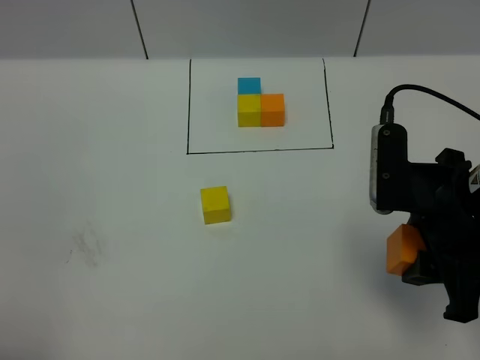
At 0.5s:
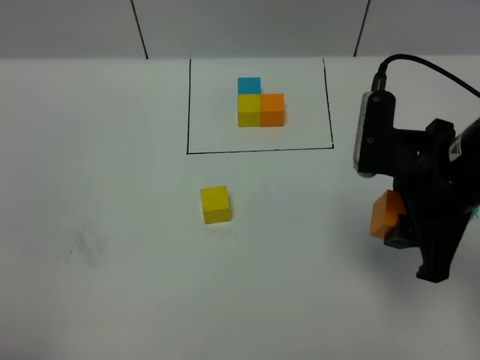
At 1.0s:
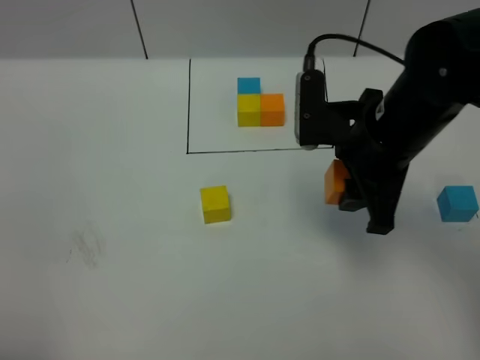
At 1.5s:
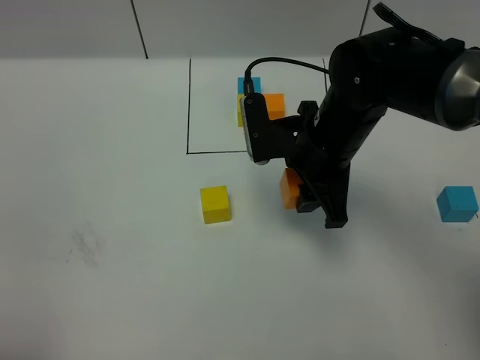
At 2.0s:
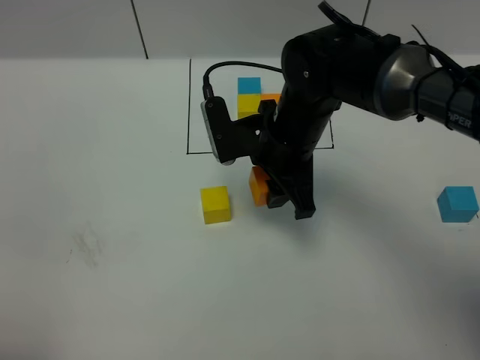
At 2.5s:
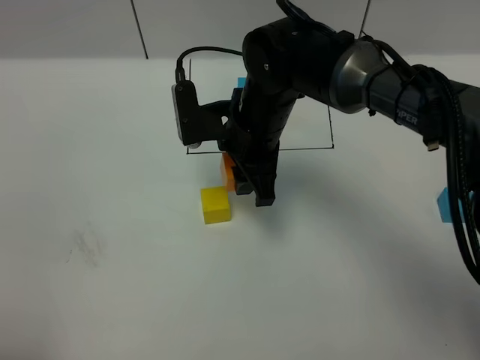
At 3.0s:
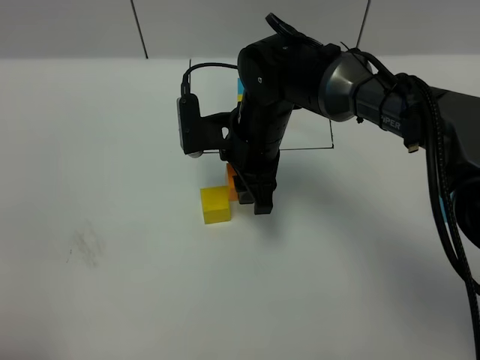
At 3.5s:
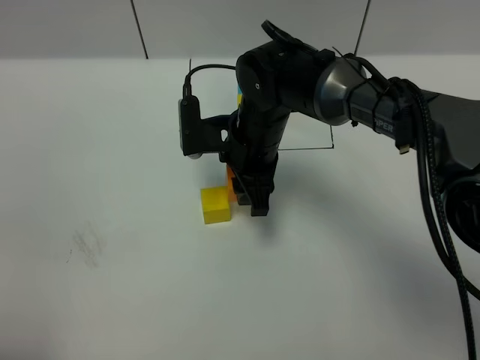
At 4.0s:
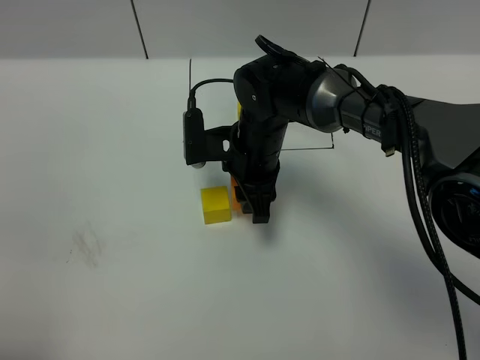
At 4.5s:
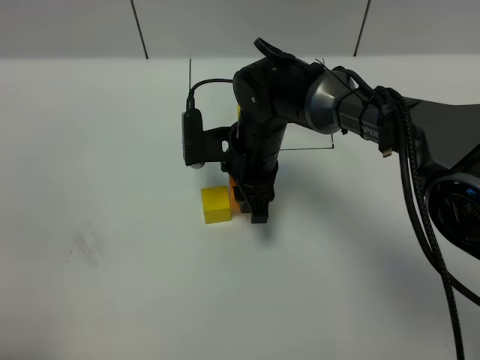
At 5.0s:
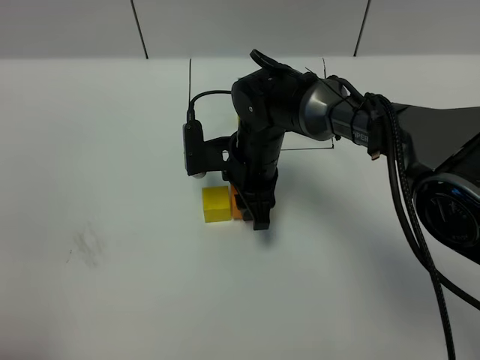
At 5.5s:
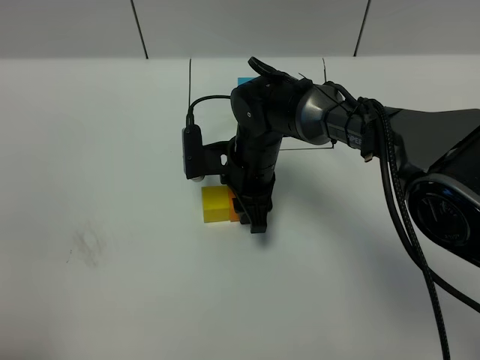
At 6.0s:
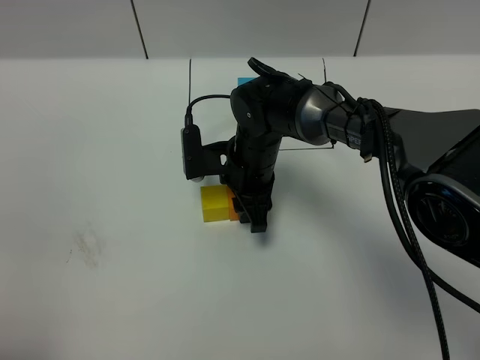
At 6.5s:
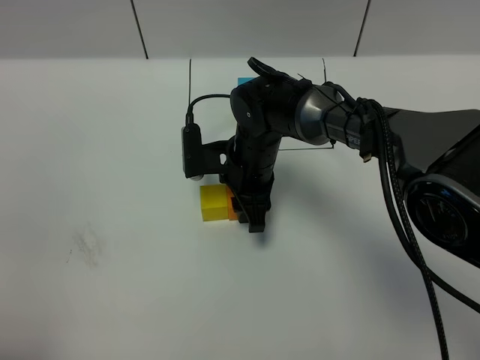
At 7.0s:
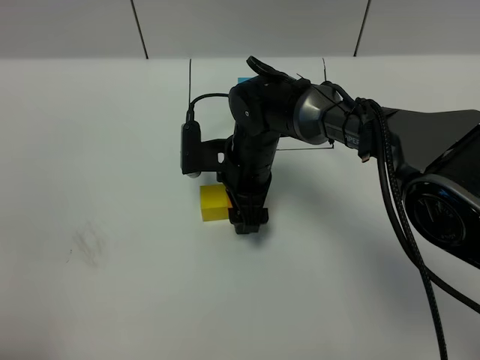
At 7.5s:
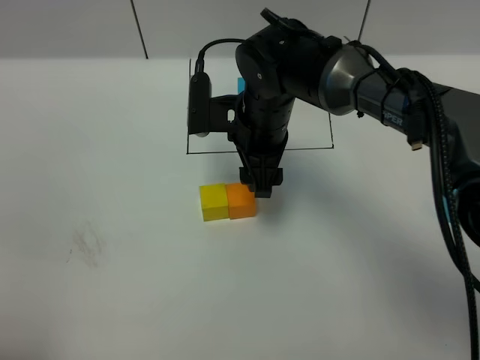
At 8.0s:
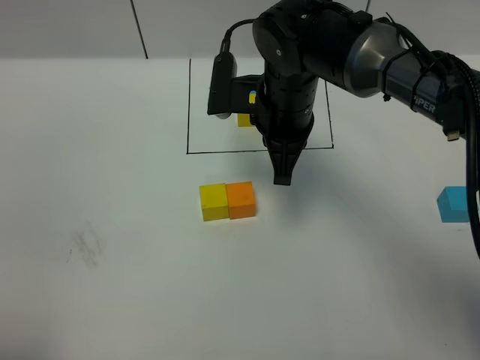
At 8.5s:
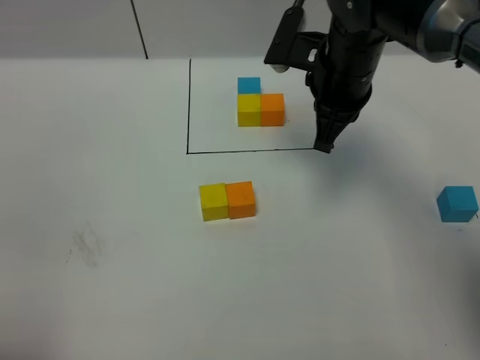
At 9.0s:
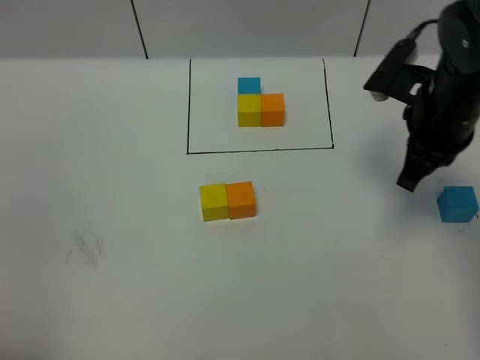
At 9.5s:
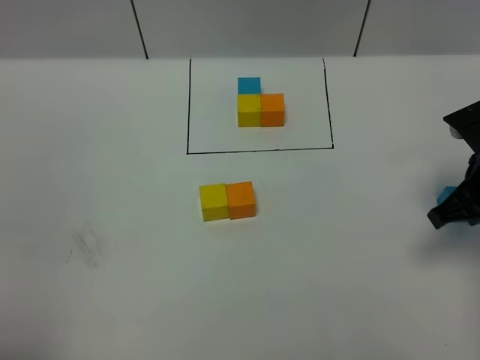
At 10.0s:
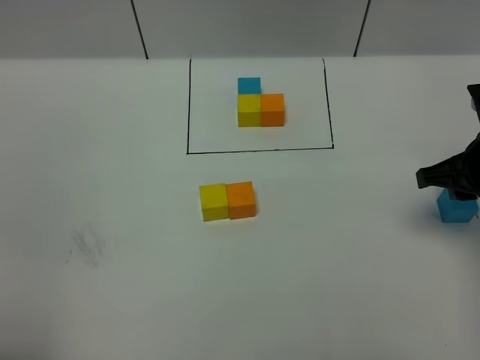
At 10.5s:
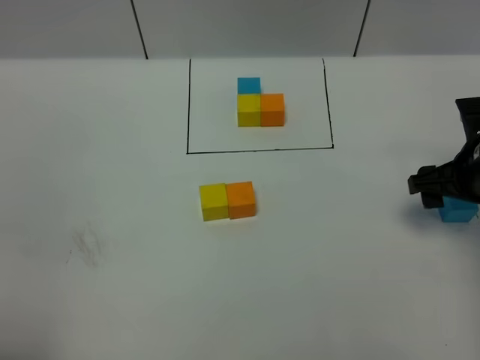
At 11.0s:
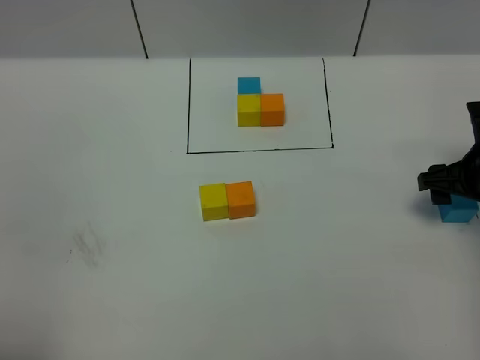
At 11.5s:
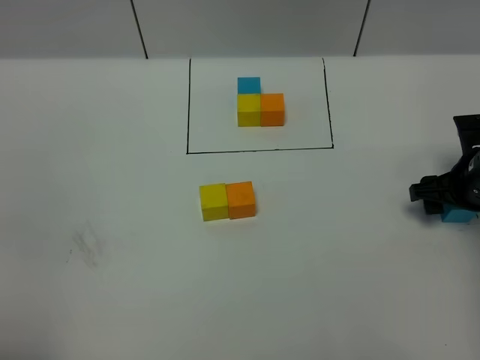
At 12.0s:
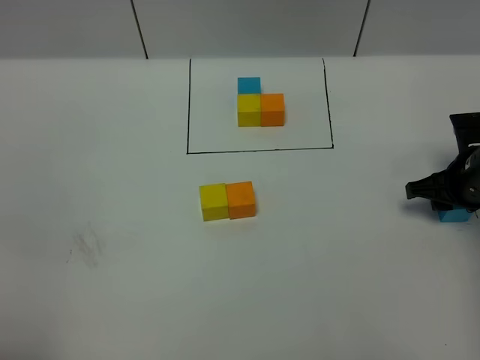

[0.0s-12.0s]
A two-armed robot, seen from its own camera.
Task of the whole recording: According to the building block template in front, assemble the scattered blocks together.
Step, 0.0s to 7.0s: Put the orange cube on the right of the yellow cube.
0.0s to 2.0s: The right gripper is displaced forward, to the left and downward by approximately 20 cm.
2.0s to 4.0s: The right gripper shifts approximately 5 cm downward.
4.0s to 6.0s: The grippers make only small movements.
6.0s to 8.0s: The right gripper travels upward by approximately 10 cm, and closes.
8.0s to 10.0s: The right gripper travels to the right by roughly 20 cm, and opens up.
10.0s to 12.0s: The right gripper goes approximately 10 cm downward, and opens, then closes once more.

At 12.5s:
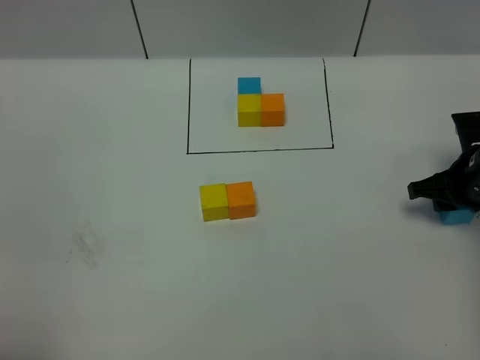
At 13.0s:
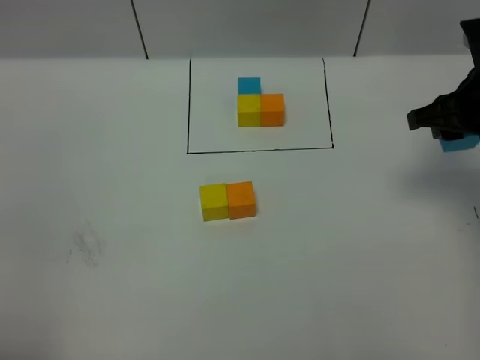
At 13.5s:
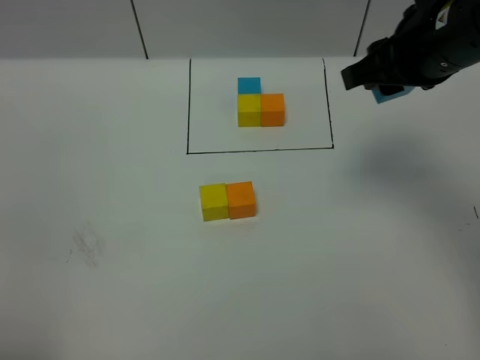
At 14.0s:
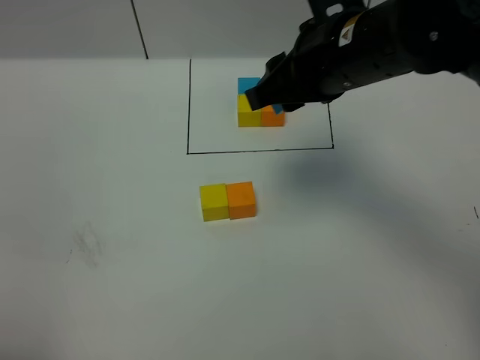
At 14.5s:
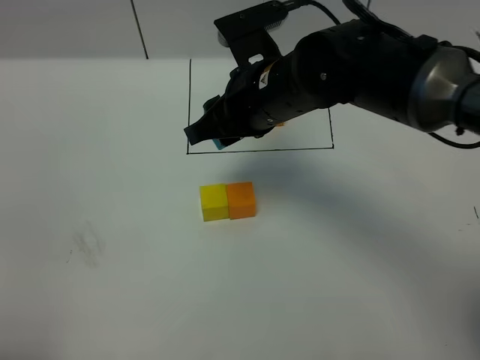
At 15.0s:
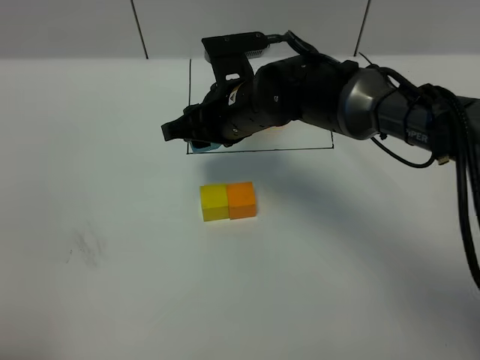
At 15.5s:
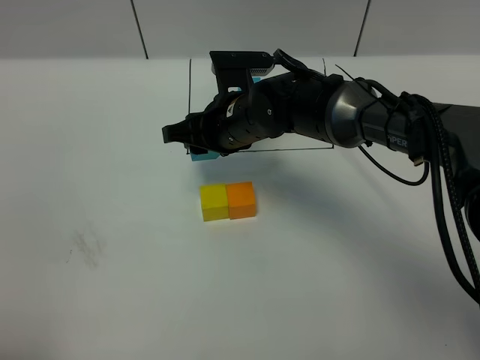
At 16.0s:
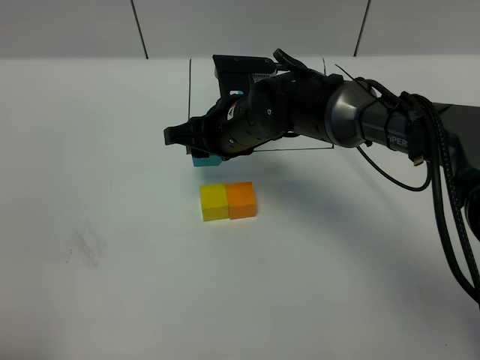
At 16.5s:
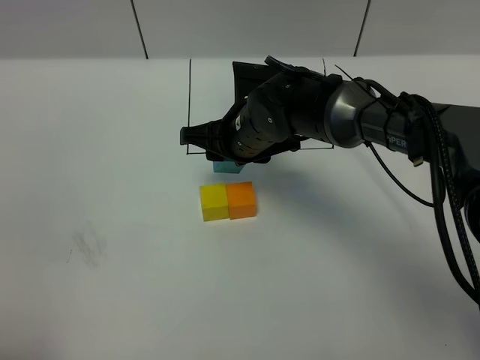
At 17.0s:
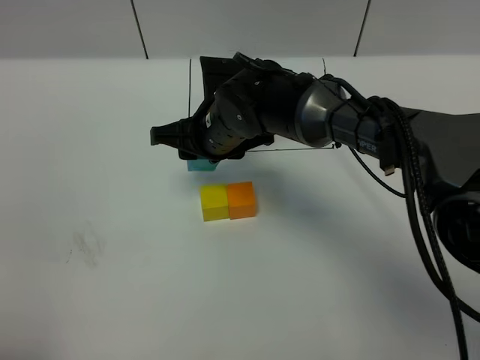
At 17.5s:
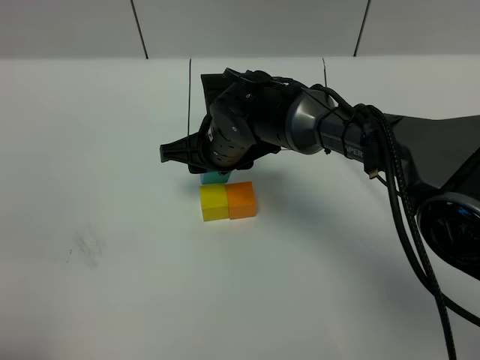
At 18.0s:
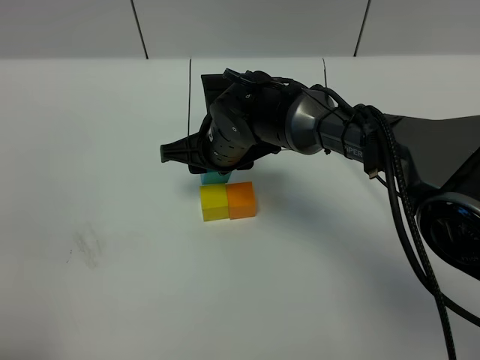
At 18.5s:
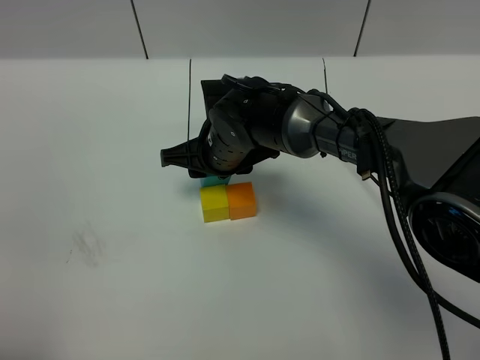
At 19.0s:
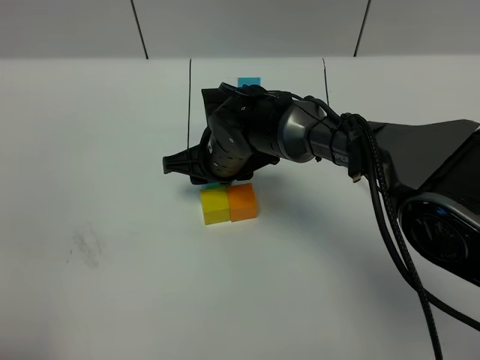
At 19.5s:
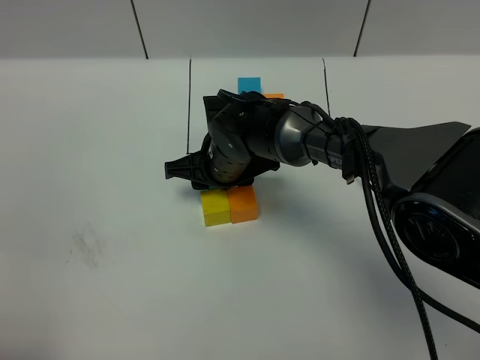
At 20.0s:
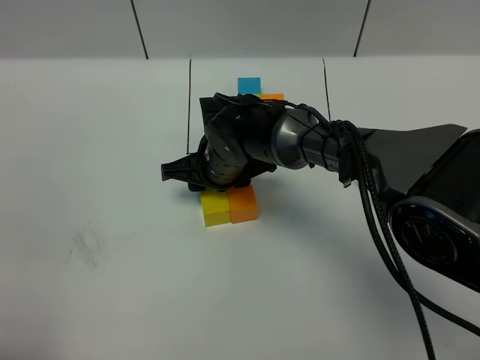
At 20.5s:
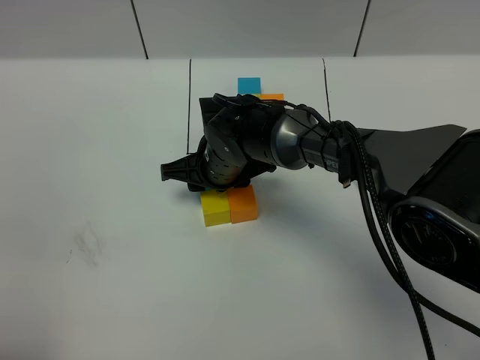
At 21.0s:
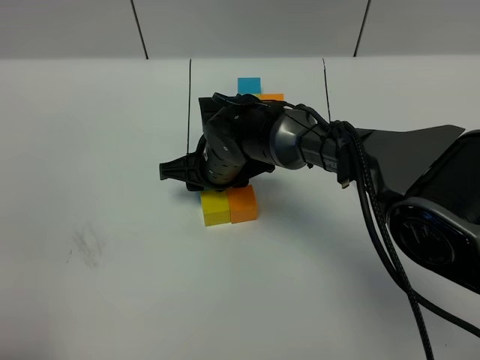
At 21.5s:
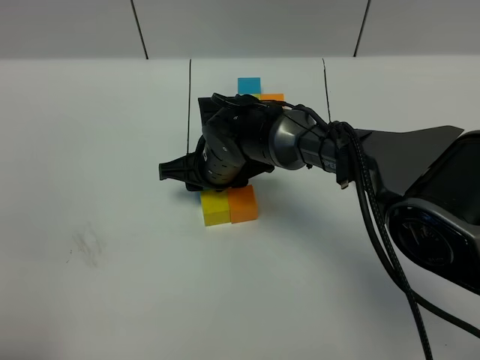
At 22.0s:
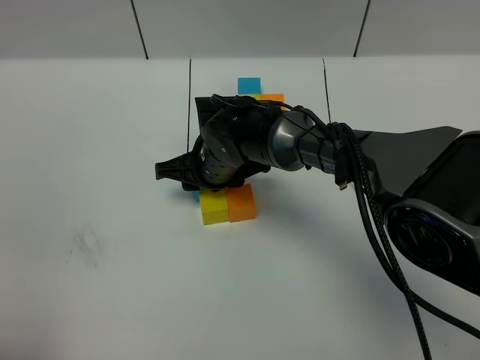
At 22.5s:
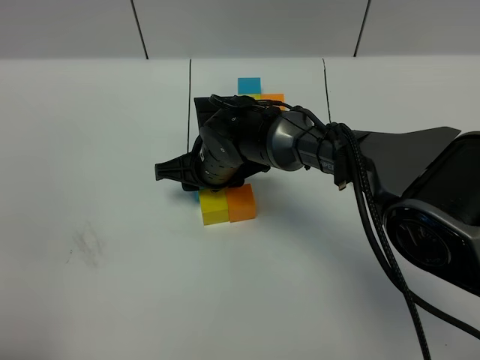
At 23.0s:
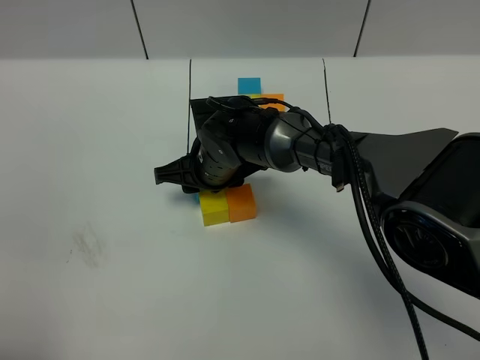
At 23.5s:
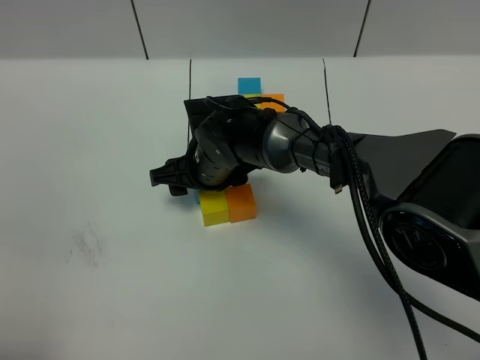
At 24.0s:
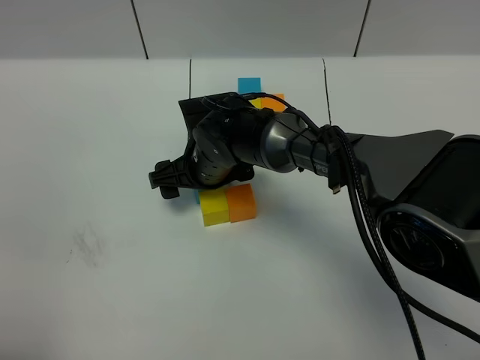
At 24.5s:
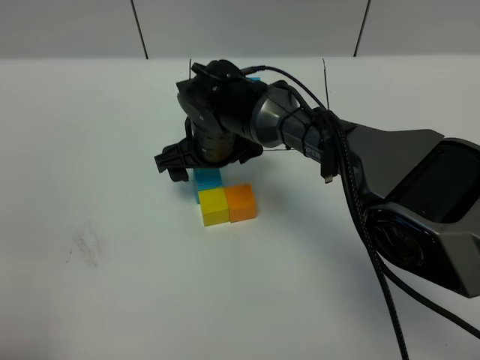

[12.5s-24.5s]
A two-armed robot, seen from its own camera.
Task of the whole recording: According to the building block template in front, assemble the scattered blocks together.
Step, 12.5s to 24.0s: Put the blue cube on the behind of the yellow cube.
12.5s to 14.5s: The right gripper is displaced to the left and upward by some 30 cm.
14.5s to 16.5s: The right gripper heads downward, covering some 10 cm.
16.5s to 18.5s: The grippers move only a little.
18.5s to 20.5s: There are only small adjustments of the grippers.
20.5s to 22.5s: Both grippers stay about where they are.
22.5s to 24.5s: The right gripper opens up.

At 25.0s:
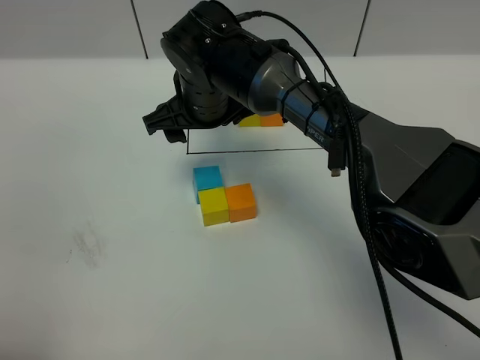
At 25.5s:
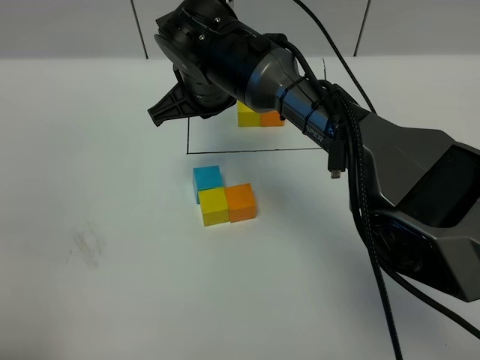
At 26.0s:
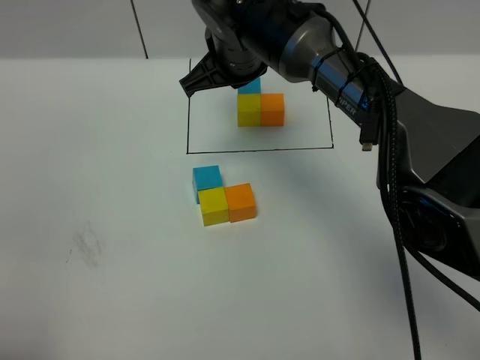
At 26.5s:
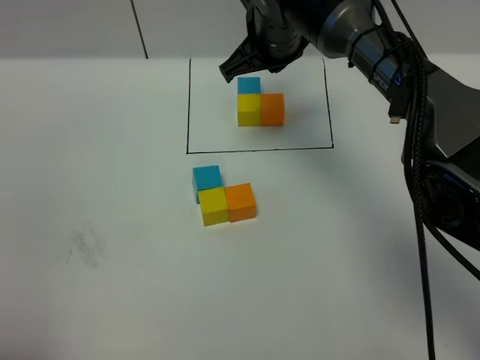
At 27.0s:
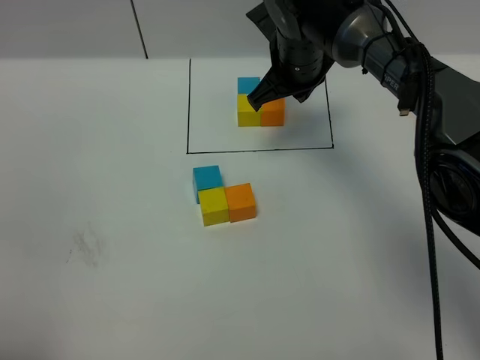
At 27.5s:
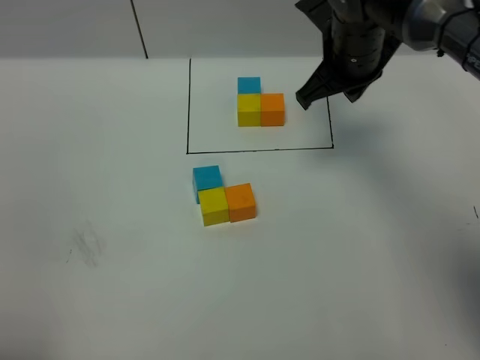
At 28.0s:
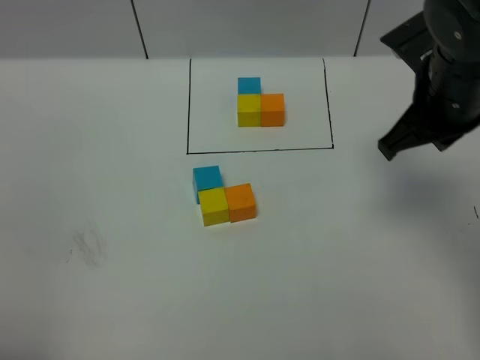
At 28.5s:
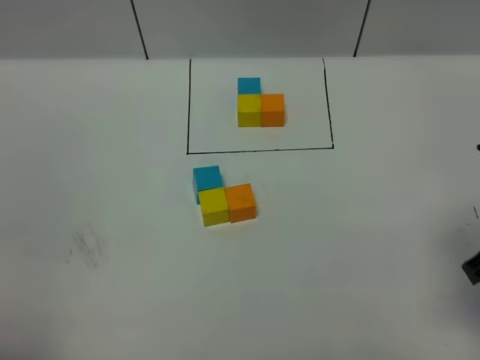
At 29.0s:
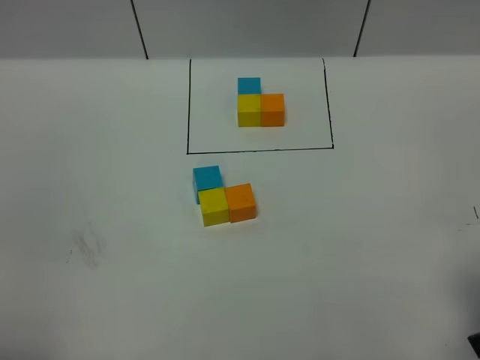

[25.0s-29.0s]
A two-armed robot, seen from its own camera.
Task of the whole recording: According to the building block template in front, assemble the scattered blocks together.
25.0s to 27.0s: The right gripper goes some 15 cm to the right and forward, and closes its fingers.
27.0s to 29.0s: The right gripper shifts approximately 40 cm backward and to the right.
